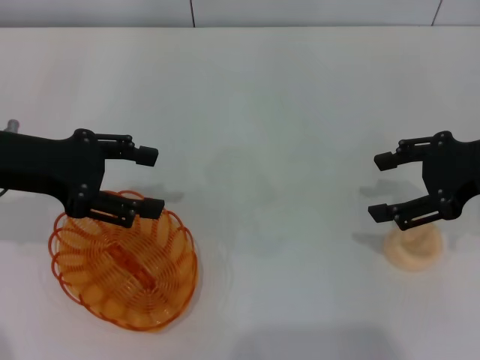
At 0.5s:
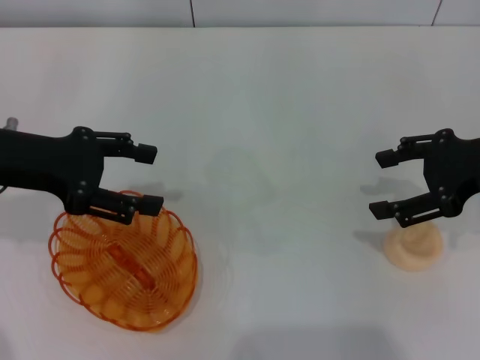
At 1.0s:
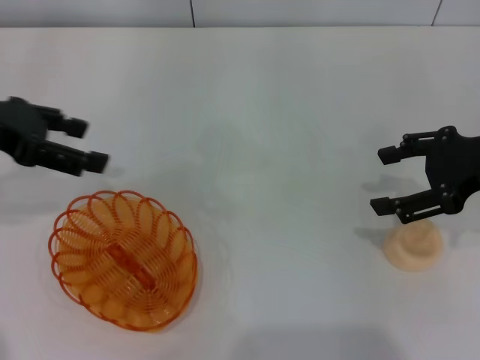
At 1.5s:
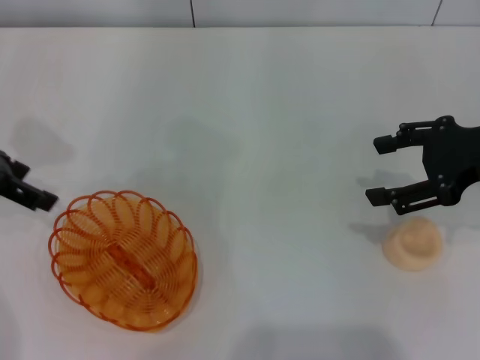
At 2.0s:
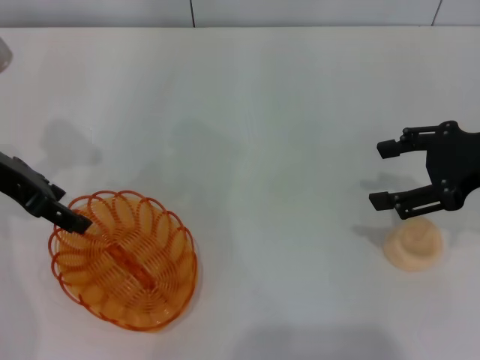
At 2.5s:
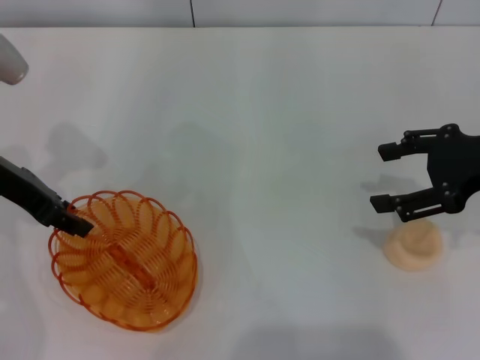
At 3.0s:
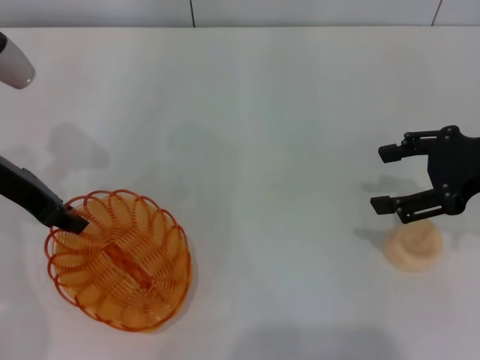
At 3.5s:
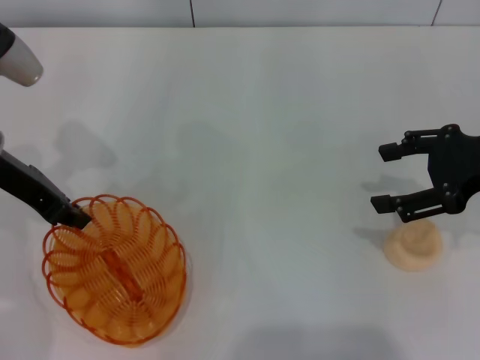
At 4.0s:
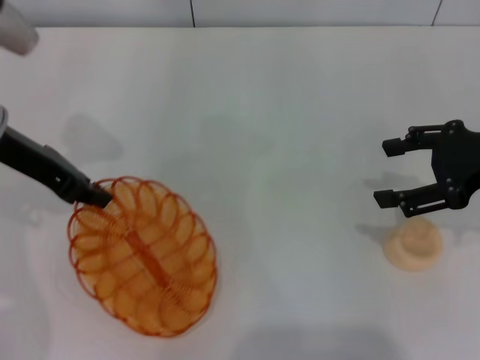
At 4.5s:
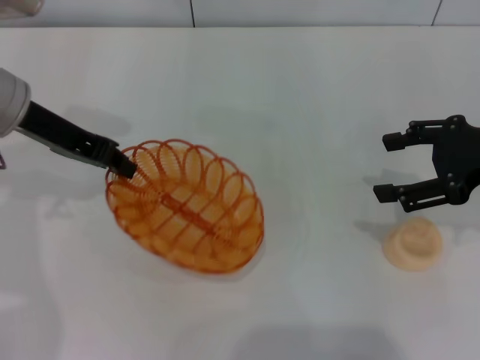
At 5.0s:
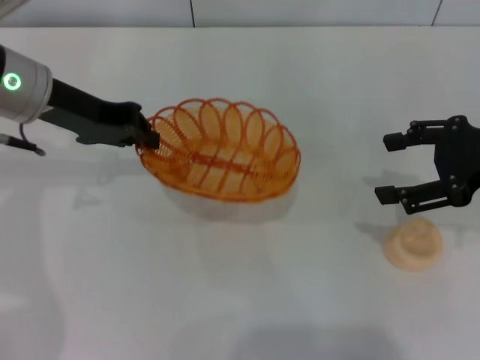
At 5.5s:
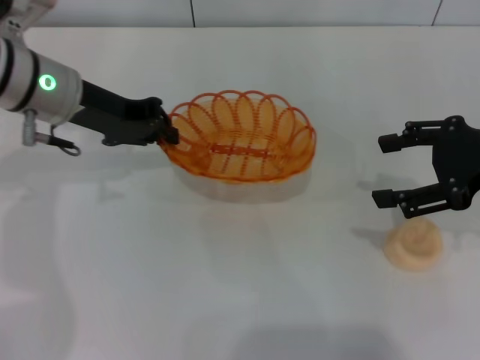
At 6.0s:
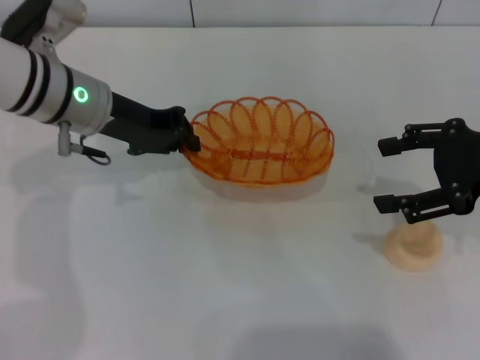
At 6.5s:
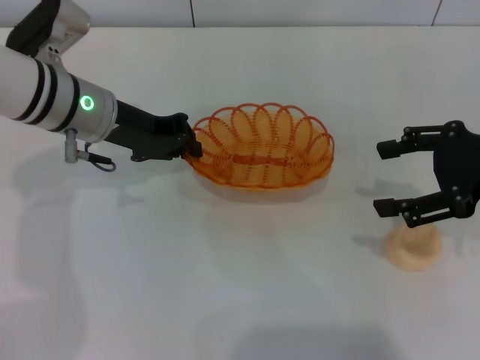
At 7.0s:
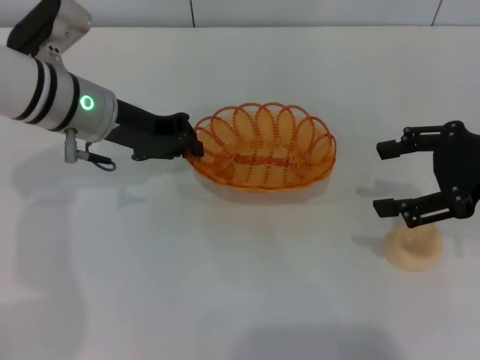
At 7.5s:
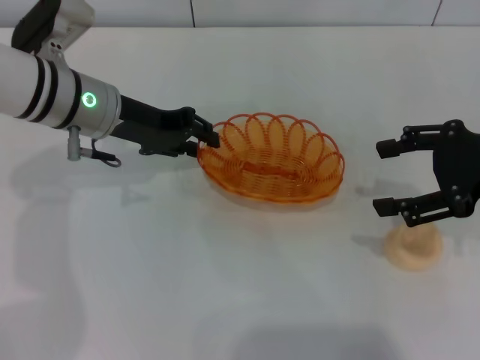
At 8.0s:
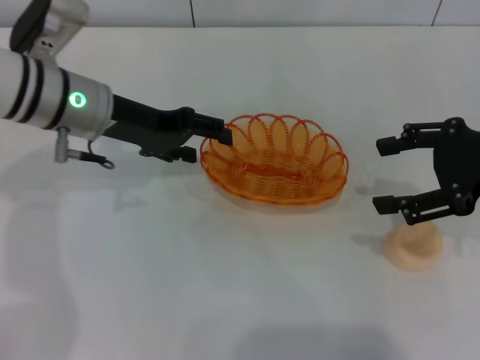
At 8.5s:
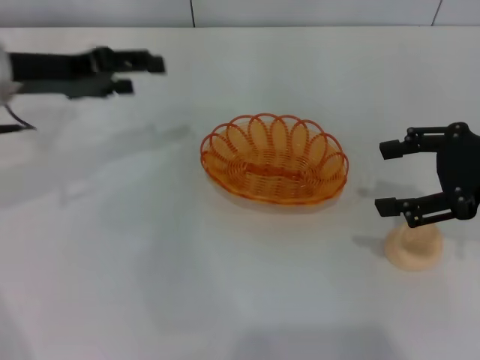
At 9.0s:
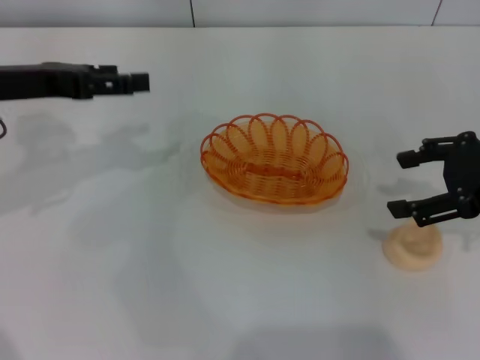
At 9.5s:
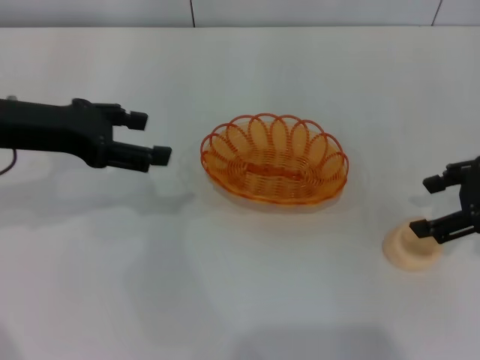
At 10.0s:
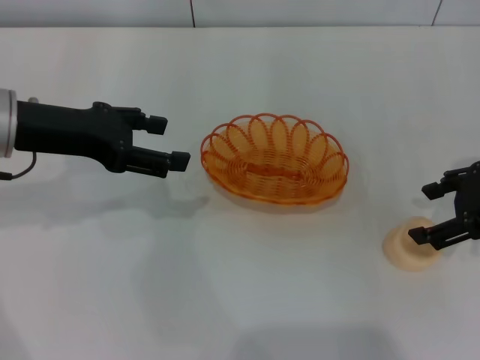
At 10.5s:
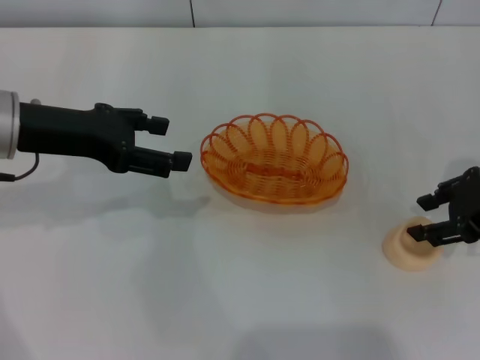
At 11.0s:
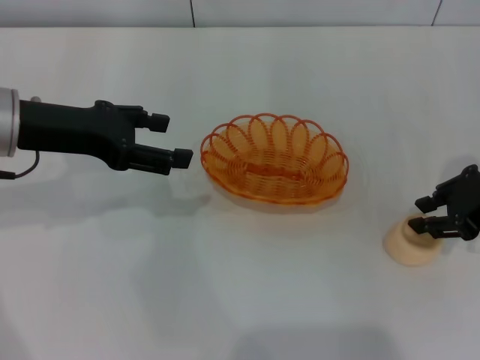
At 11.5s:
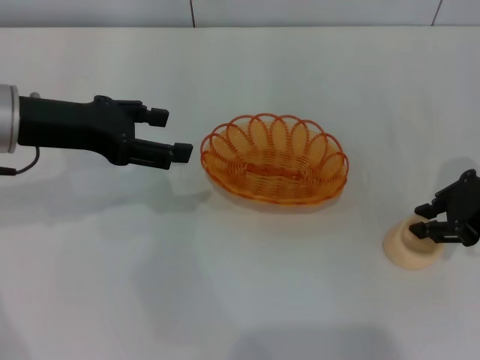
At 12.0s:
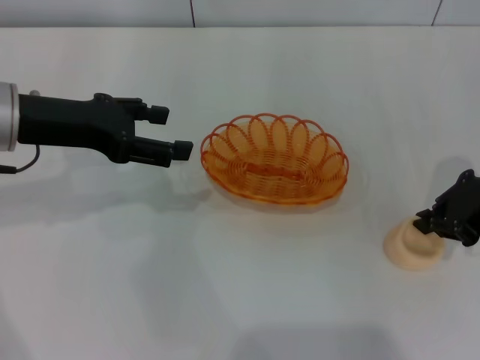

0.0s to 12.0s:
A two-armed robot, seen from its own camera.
Step, 0.0s to 4.0s: Pick up the basket with the left gripper.
Step, 5.0s to 9.0s: Place the basket in the center of view with the left gripper.
2.0s to 4.0s: The left gripper closes its fingers.
4.0s to 6.0s: The left gripper heads to the right, covering about 5 cm.
6.0s to 8.0s: The left gripper opens.
8.0s to 10.0s: The left gripper heads to the left and backward, covering approximately 10 cm, and opens.
10.0s to 12.0s: The right gripper closes.

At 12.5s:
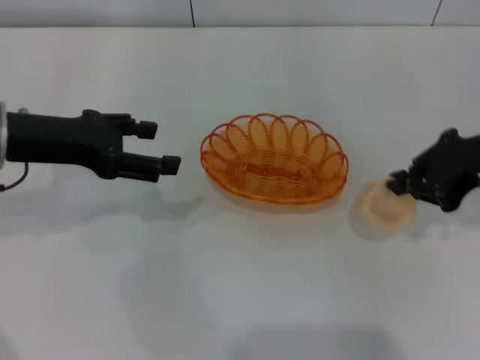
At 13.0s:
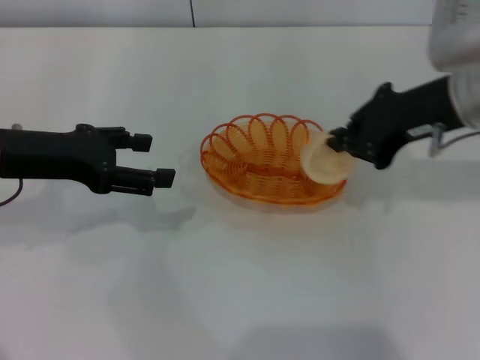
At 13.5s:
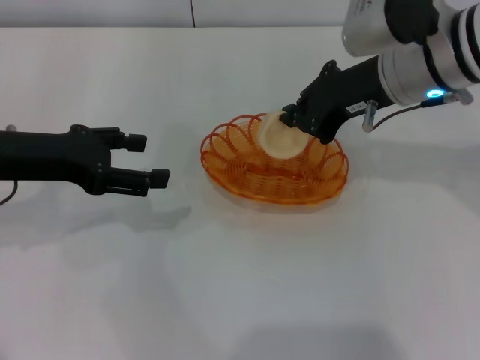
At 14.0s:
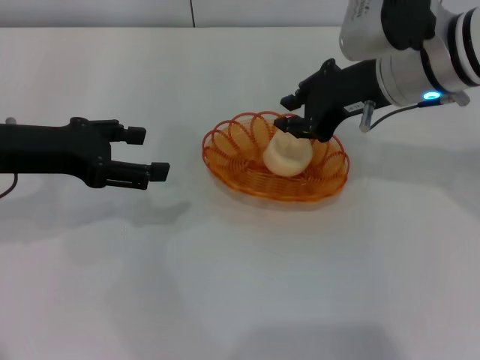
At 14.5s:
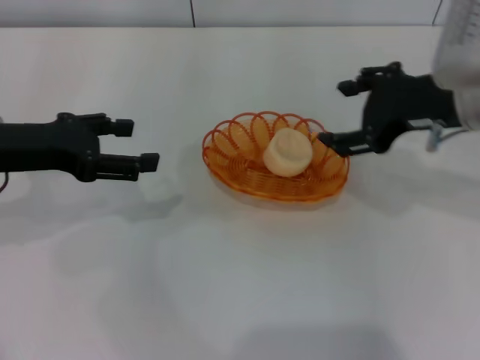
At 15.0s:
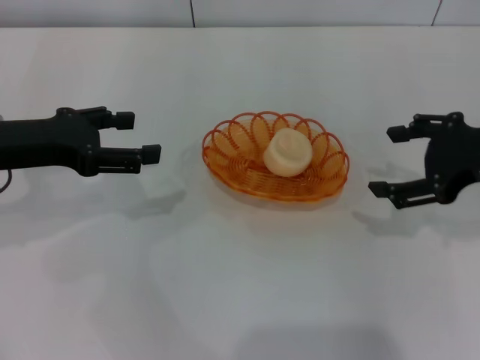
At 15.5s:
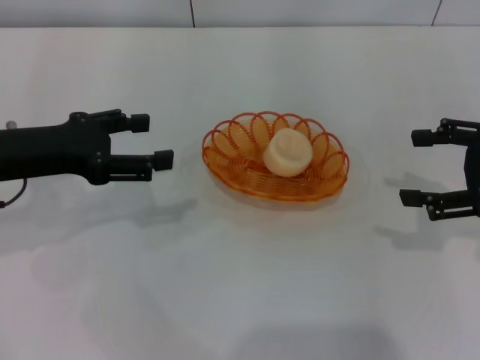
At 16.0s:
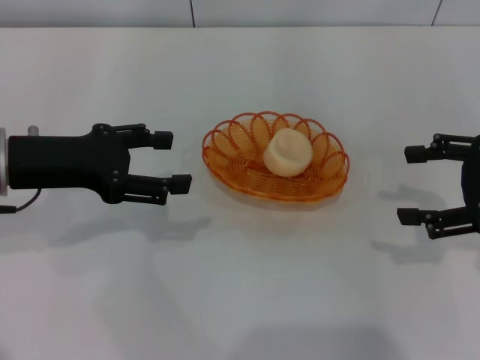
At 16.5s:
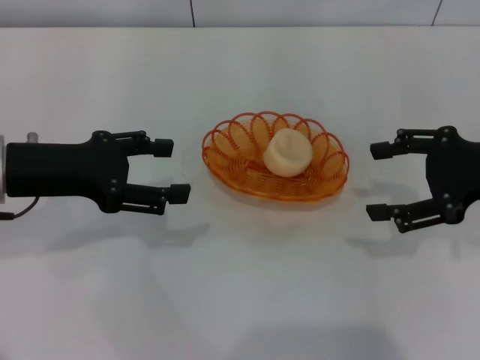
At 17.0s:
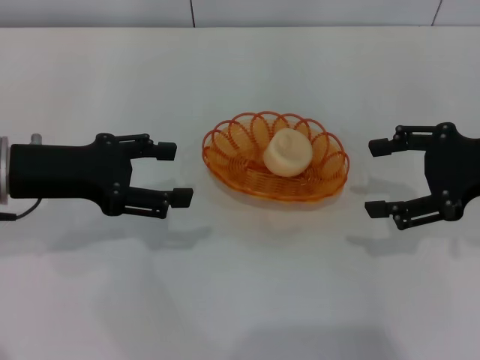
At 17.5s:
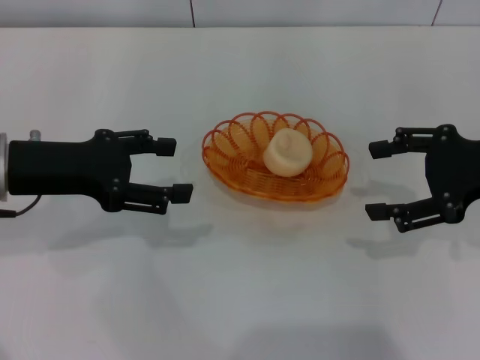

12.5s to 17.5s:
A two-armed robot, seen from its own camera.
Step, 13.0s to 14.5s: Place the egg yolk pastry into the basket with the right gripper.
12.5s to 15.0s: The right gripper goes to the left and returns, roughly 10 cm each way, and opens its fingers.
15.0s to 17.5s: The grippers move only a little.

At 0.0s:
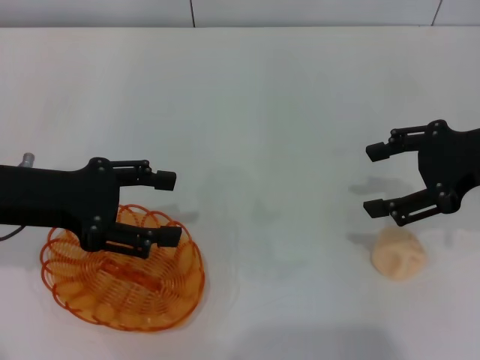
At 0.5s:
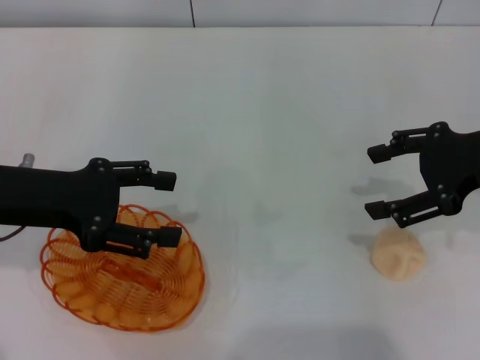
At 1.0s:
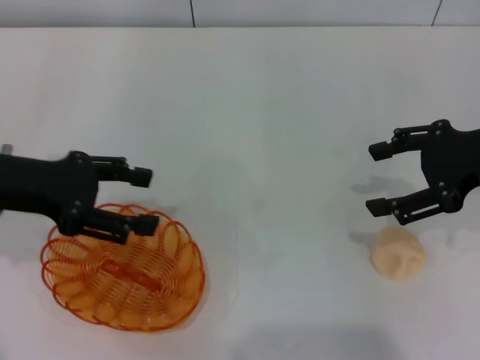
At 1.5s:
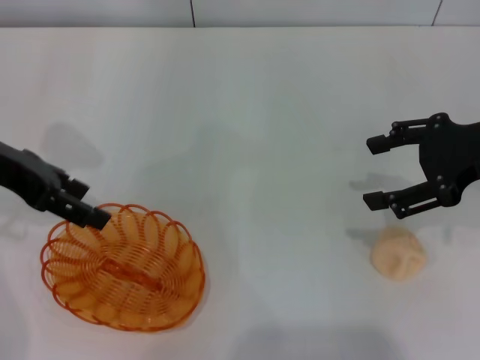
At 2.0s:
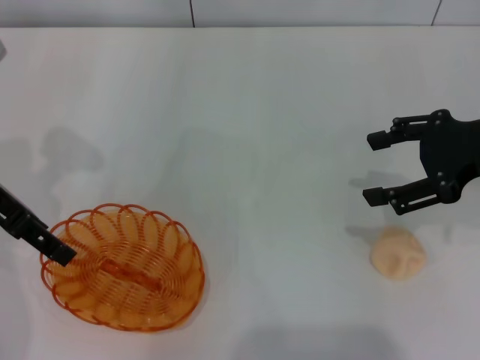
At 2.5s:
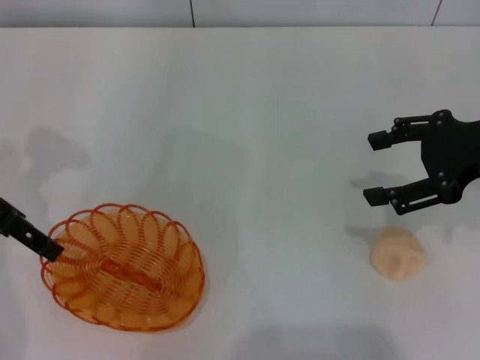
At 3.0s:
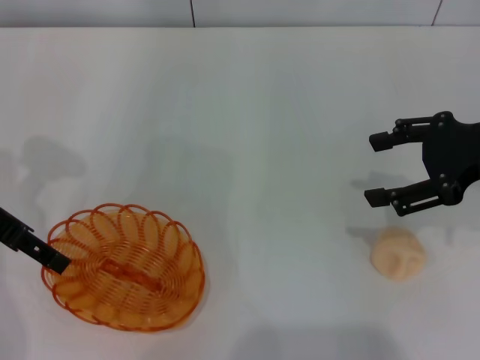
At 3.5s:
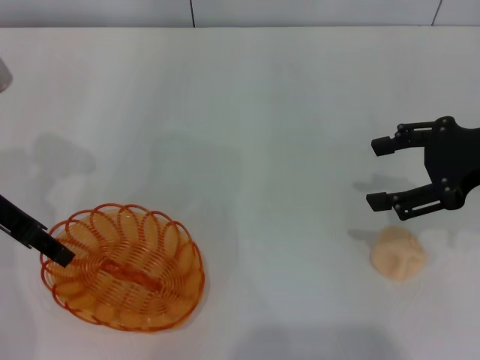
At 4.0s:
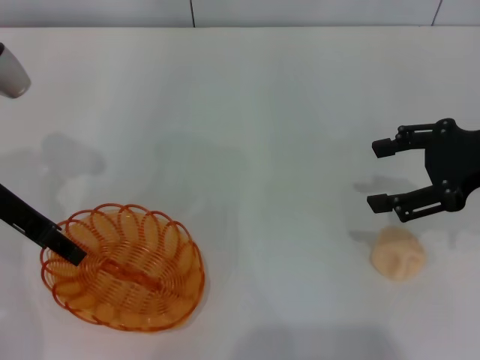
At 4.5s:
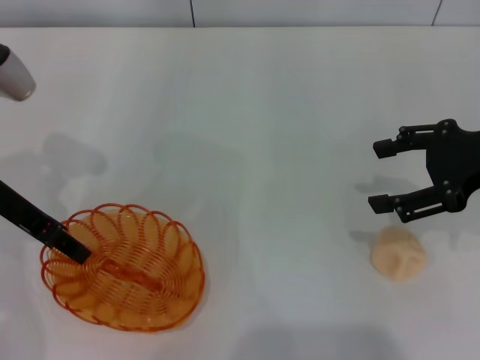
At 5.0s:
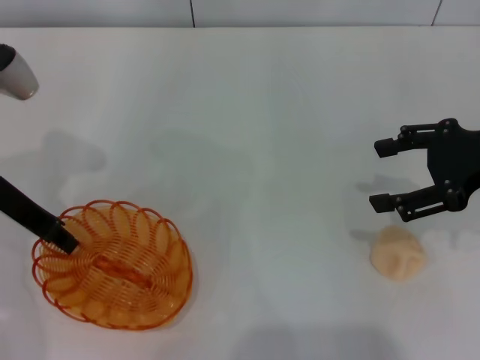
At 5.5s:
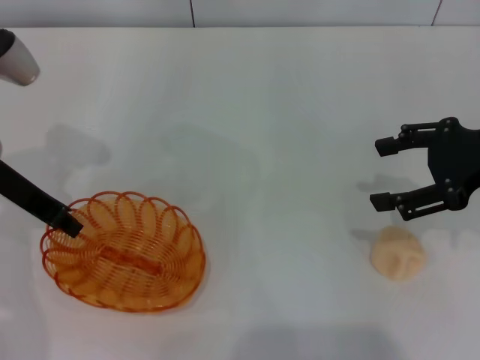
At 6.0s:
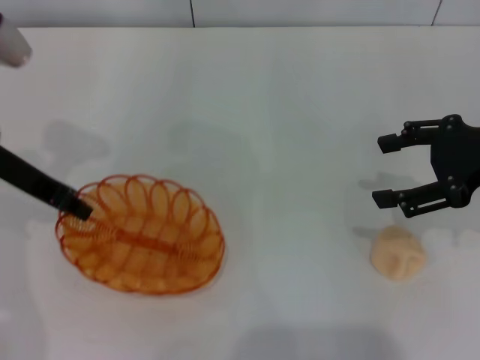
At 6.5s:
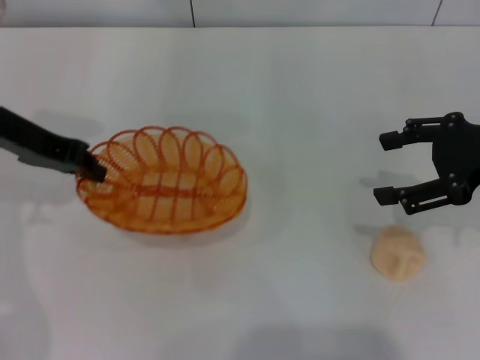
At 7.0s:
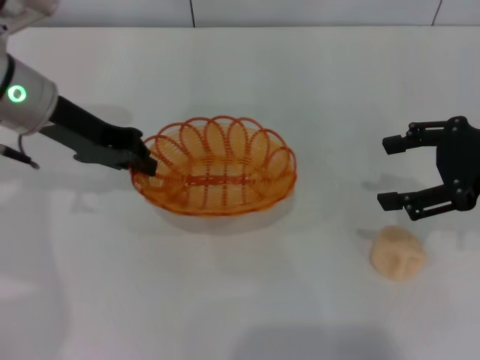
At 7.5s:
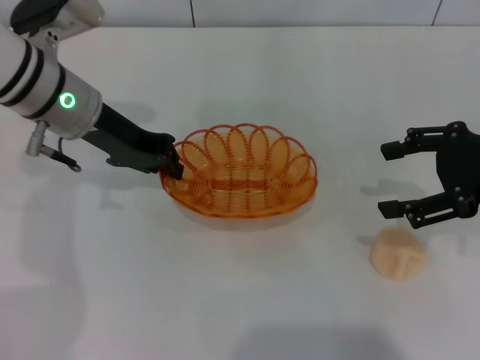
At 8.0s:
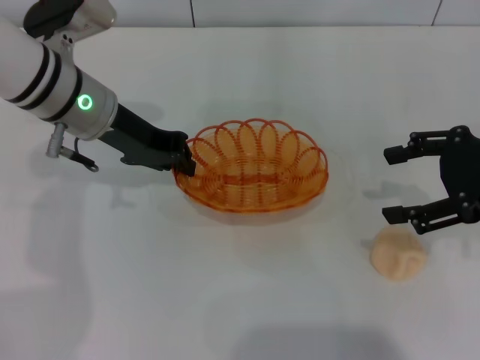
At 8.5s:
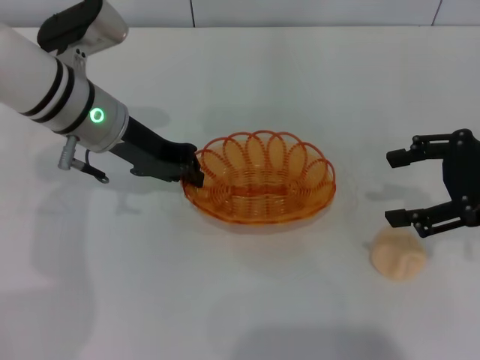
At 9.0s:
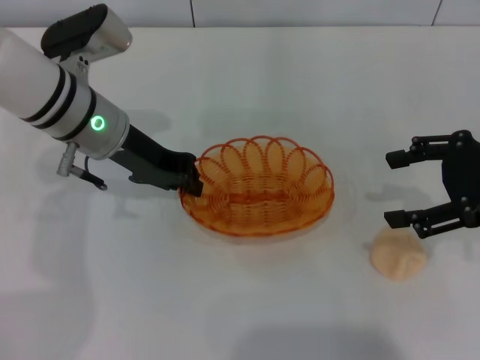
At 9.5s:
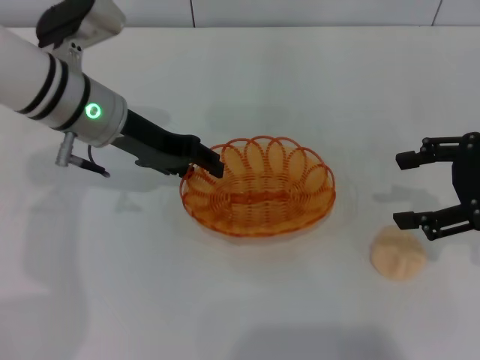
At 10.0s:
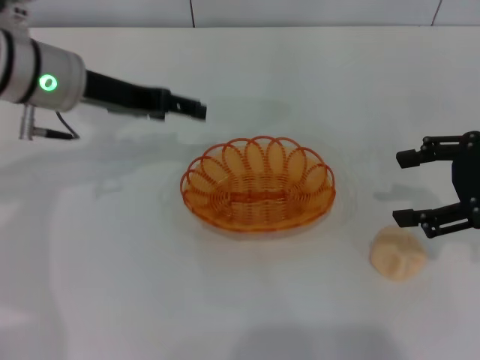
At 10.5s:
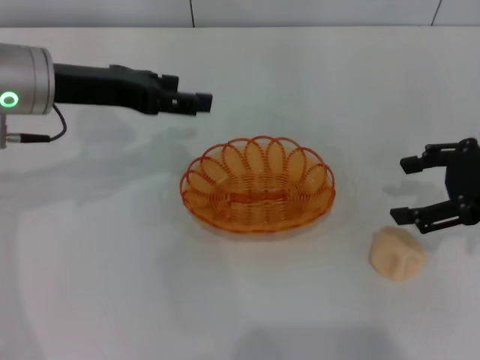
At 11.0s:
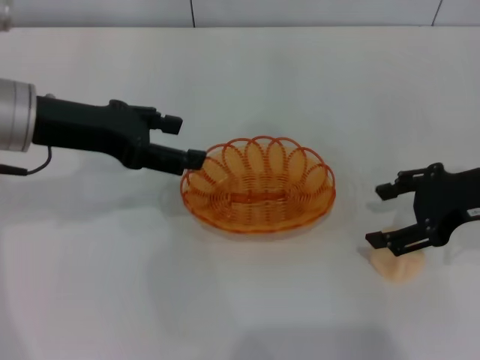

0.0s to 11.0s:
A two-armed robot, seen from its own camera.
Step, 0.0s to 6.5s: Pick up the basket with the left gripper.
Step, 7.0s to 10.0s: Place the basket in the center of view with the left gripper.
0.0s to 2.0s: The left gripper heads forward and upward, covering some 5 cm.
2.0s to 3.5s: The grippers make only small movements.
3.5s to 5.5s: The left gripper closes.
5.5s to 7.5s: The left gripper is displaced to the right by some 5 cm.
7.5s to 9.0s: The grippers stay close to where they were, moving slightly.
9.0s to 11.0s: The left gripper heads to the left, covering some 5 cm, and opens.
